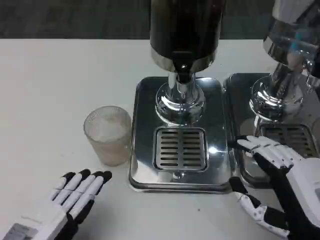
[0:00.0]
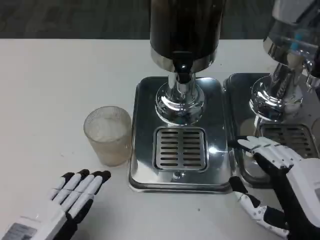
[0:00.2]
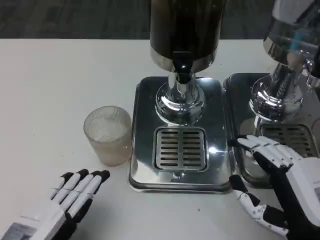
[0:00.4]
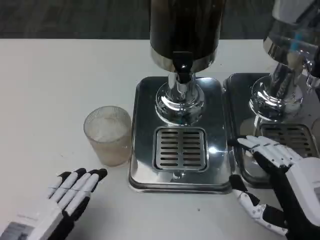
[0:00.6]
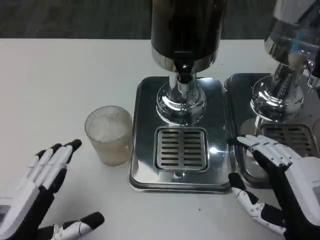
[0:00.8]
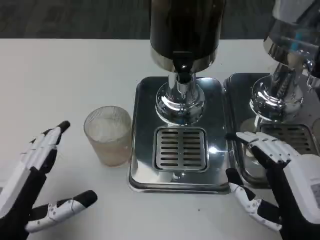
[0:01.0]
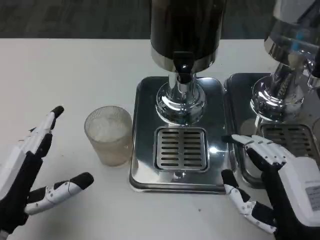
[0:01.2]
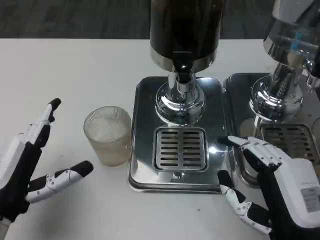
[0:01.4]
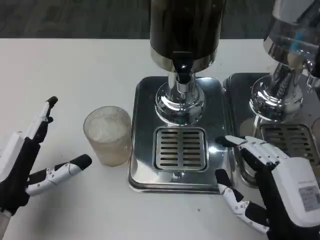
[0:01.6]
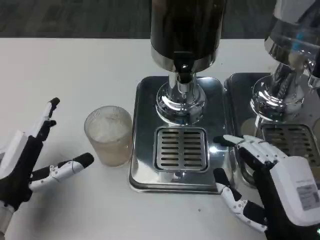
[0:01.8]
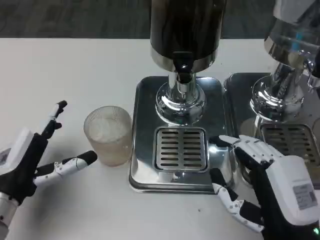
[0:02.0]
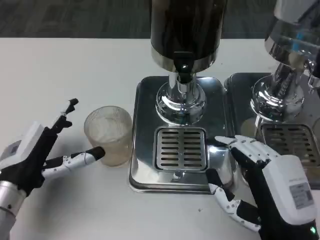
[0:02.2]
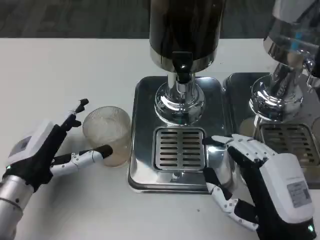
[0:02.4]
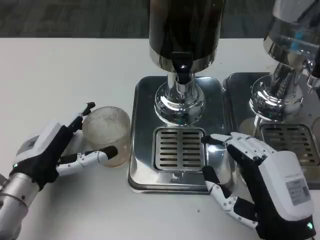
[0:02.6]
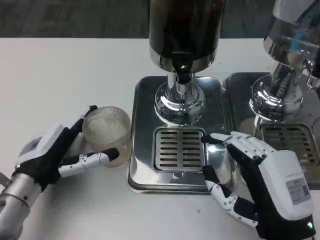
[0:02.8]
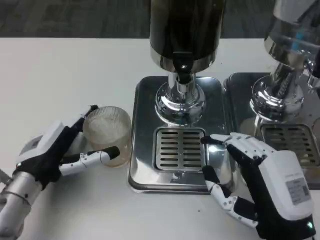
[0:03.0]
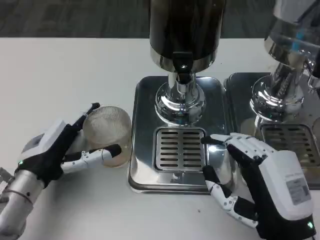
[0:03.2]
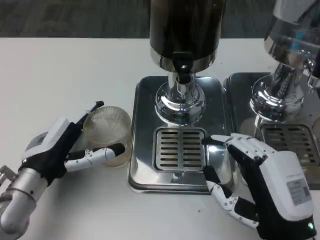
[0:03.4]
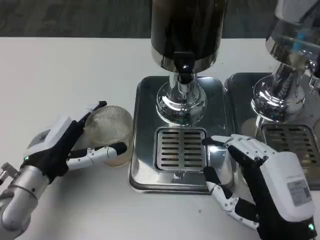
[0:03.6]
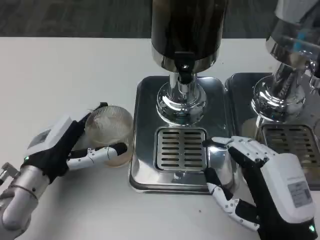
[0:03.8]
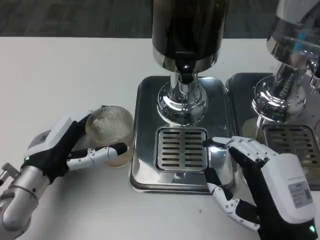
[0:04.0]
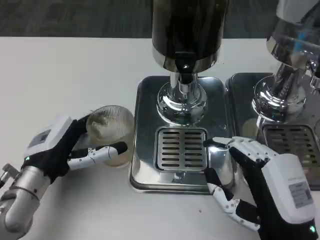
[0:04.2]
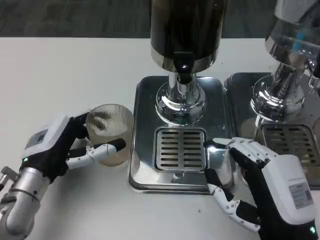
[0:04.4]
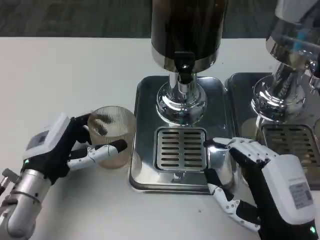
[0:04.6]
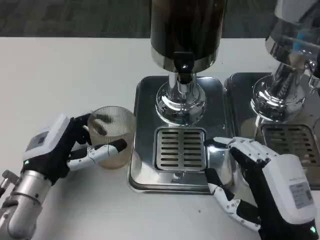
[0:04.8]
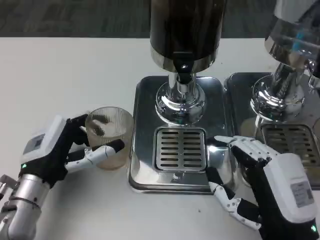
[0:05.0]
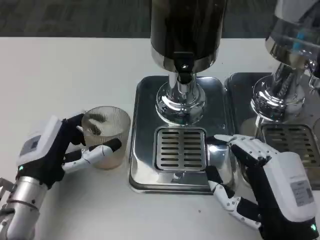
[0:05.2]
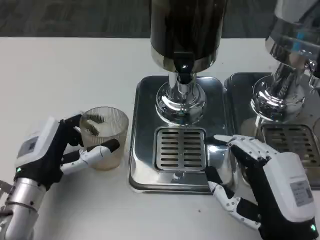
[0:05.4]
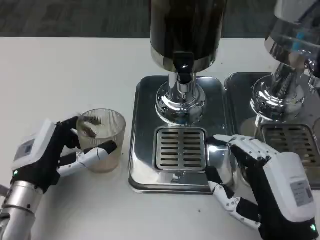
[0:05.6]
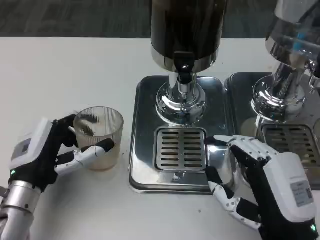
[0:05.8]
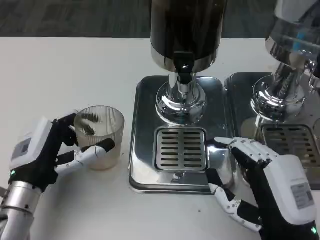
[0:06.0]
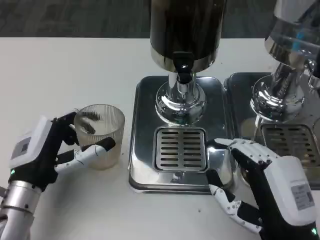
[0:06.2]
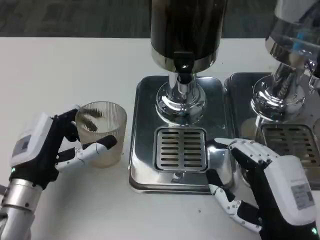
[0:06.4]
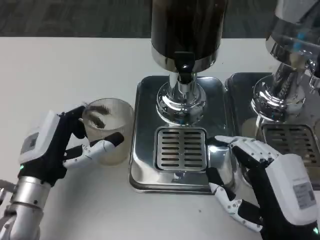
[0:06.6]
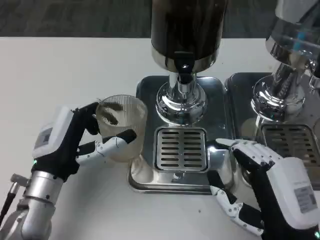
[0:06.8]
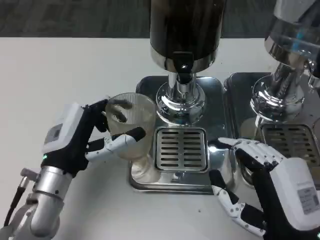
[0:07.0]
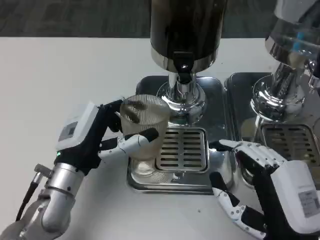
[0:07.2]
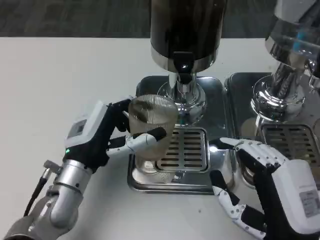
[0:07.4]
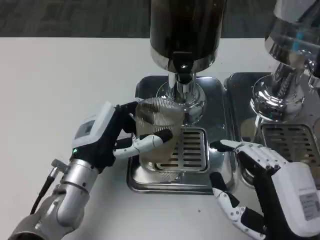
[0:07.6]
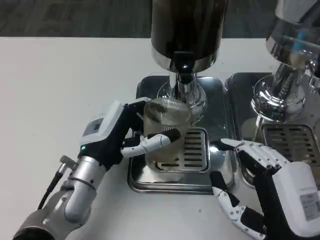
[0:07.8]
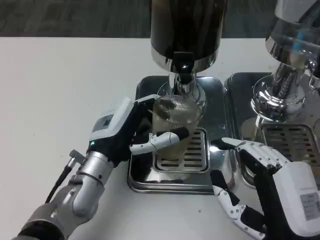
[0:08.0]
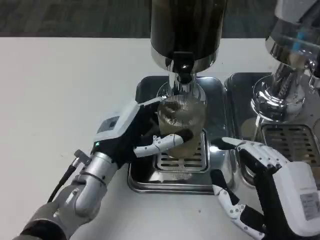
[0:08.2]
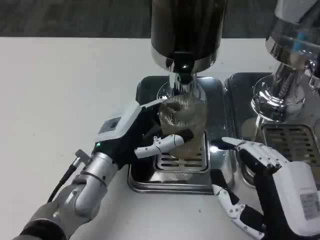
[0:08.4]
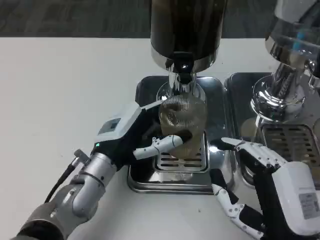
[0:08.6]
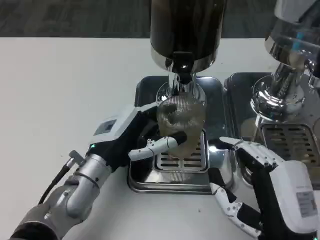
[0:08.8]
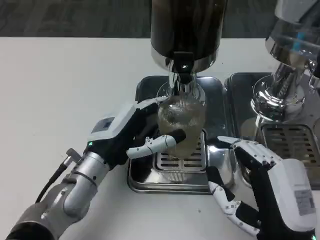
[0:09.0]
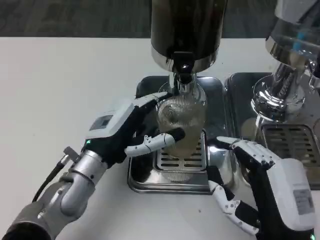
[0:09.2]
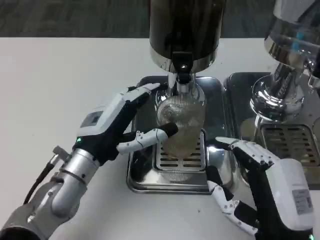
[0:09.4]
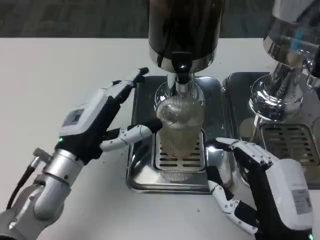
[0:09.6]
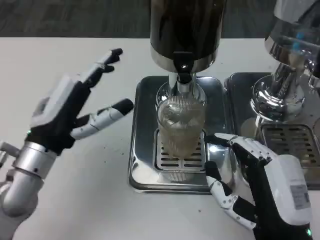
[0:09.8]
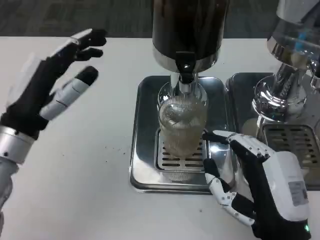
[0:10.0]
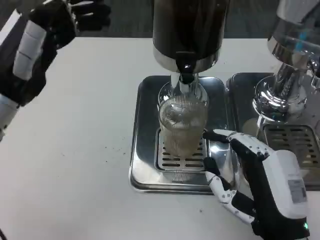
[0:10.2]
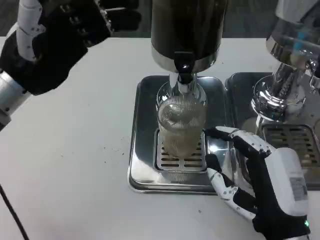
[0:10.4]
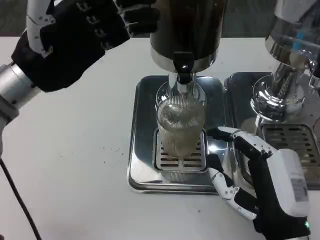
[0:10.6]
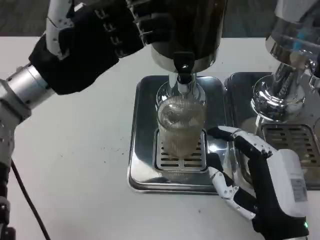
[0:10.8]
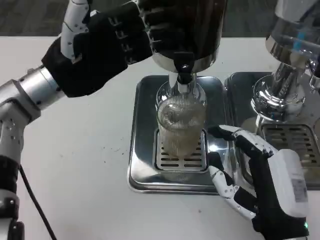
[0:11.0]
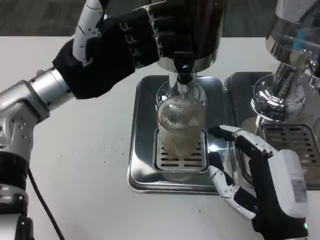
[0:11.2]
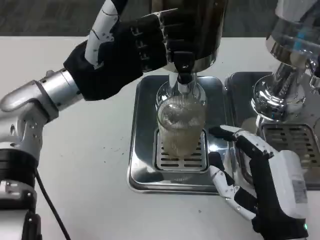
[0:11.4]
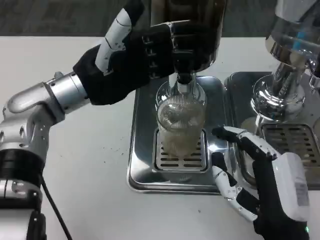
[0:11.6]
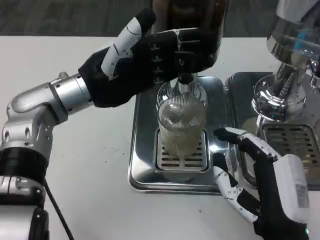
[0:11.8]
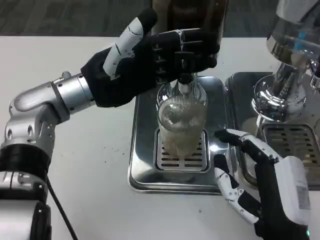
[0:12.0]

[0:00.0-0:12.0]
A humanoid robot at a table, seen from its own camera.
Task of the whole recording: Grasp the cup under the faucet to collect the drink, then remove the cup.
0:00.0 to 0:01.6: The left hand travels forward by approximately 10 cm.
0:01.6 to 0:03.0: The left hand travels forward by roughly 5 cm.
0:03.0 to 0:06.0: There are only small adjustments of the hands.
0:06.0 to 0:07.6: The left hand heads to the right, covering approximately 5 cm.
0:07.6 to 0:09.0: There are only small adjustments of the hands.
0:09.0 to 0:10.4: The left hand moves upward and to the left, roughly 15 cm.
0:10.4 to 0:12.0: The left hand travels to the right by about 5 cm.

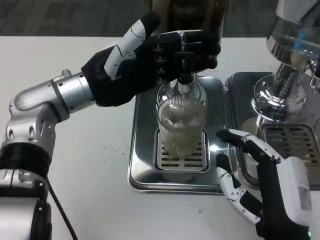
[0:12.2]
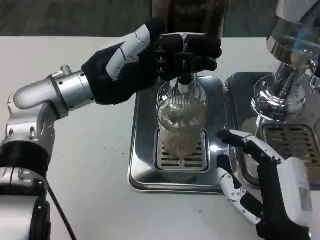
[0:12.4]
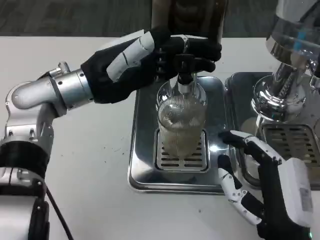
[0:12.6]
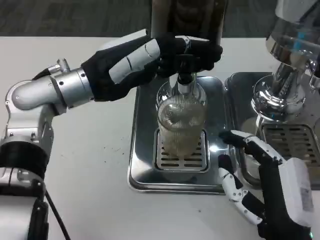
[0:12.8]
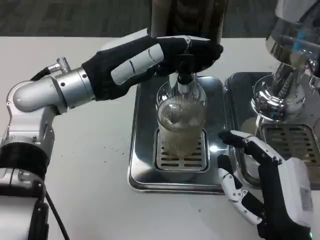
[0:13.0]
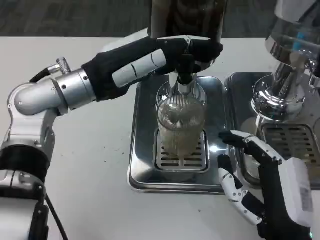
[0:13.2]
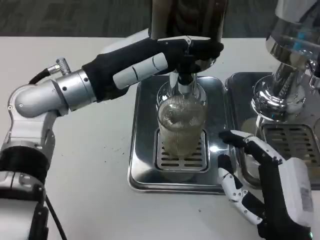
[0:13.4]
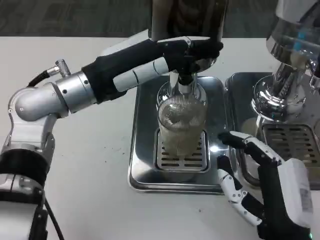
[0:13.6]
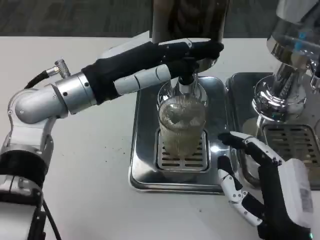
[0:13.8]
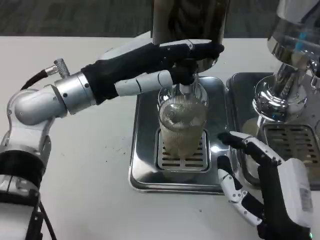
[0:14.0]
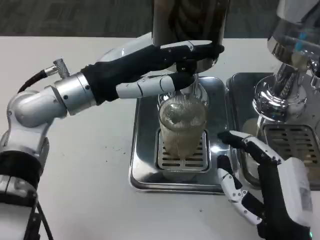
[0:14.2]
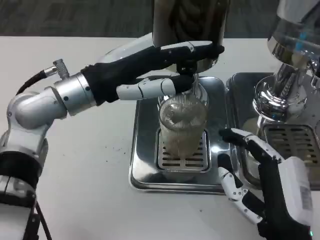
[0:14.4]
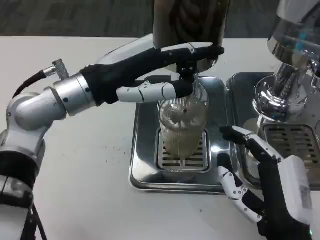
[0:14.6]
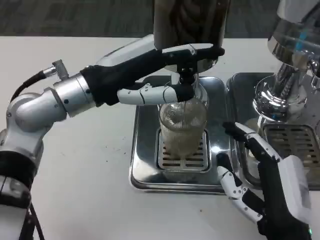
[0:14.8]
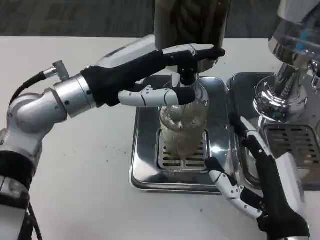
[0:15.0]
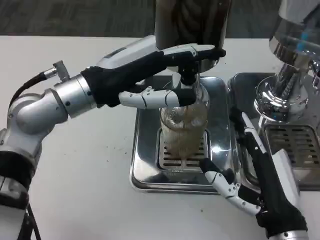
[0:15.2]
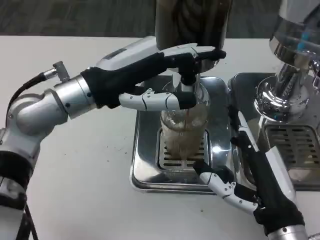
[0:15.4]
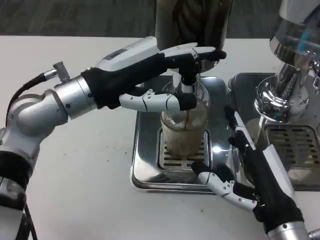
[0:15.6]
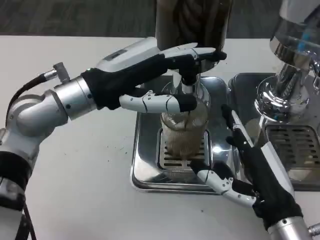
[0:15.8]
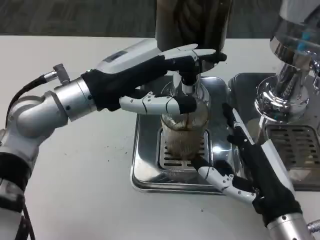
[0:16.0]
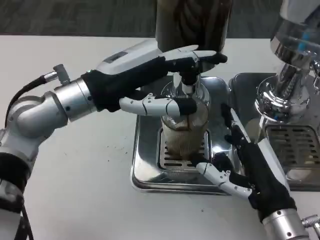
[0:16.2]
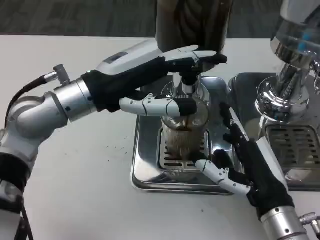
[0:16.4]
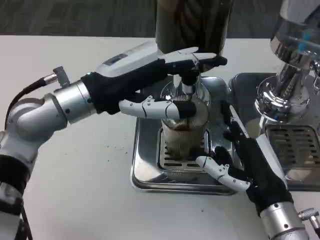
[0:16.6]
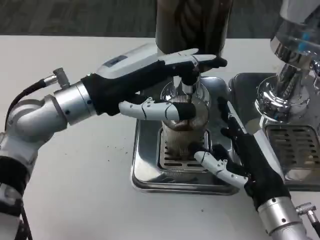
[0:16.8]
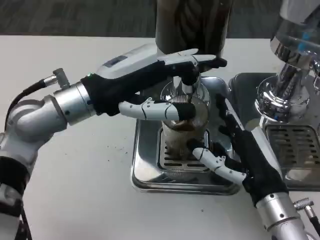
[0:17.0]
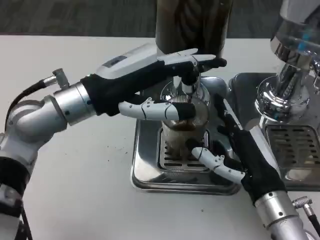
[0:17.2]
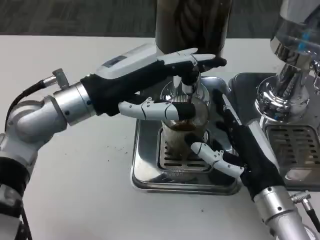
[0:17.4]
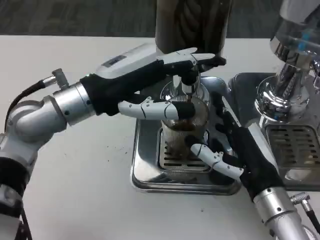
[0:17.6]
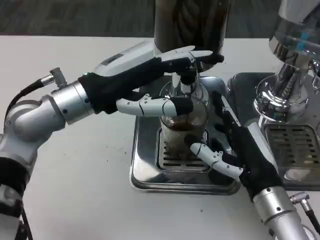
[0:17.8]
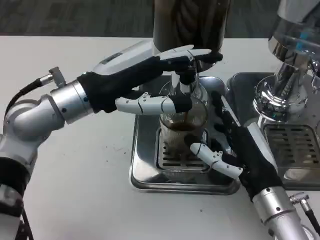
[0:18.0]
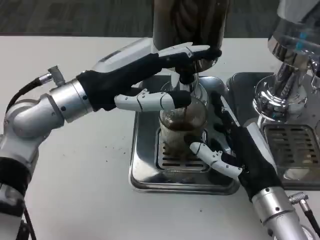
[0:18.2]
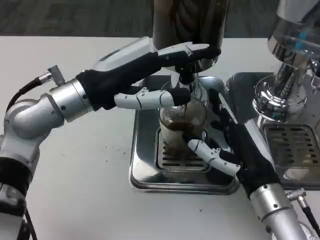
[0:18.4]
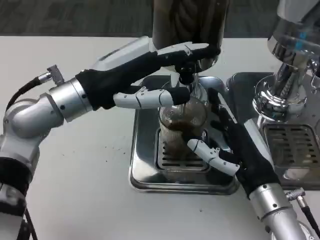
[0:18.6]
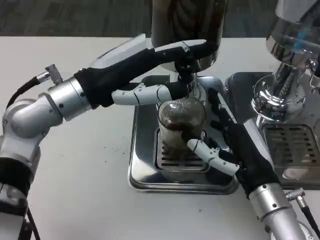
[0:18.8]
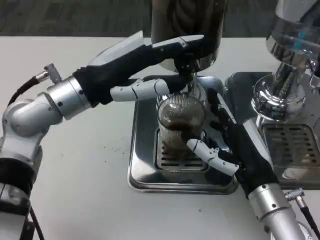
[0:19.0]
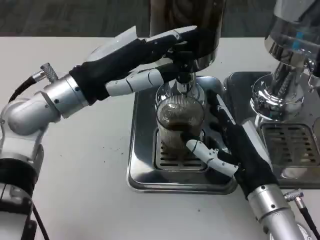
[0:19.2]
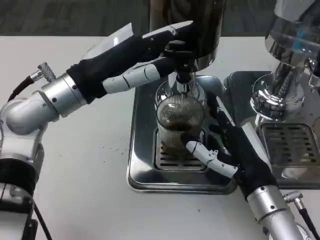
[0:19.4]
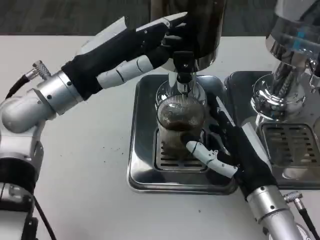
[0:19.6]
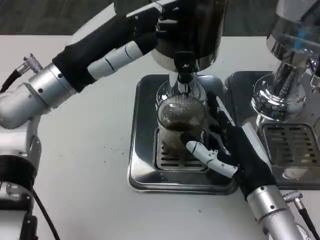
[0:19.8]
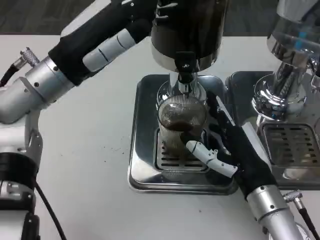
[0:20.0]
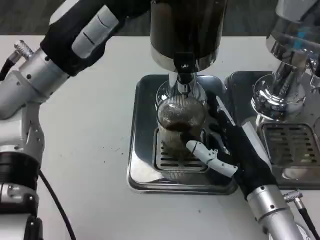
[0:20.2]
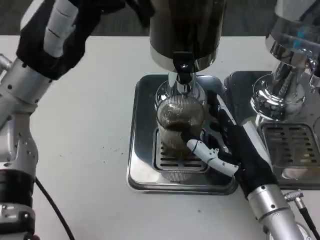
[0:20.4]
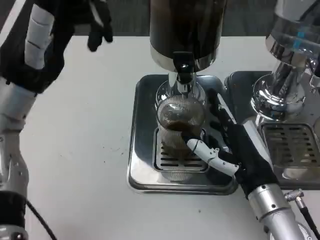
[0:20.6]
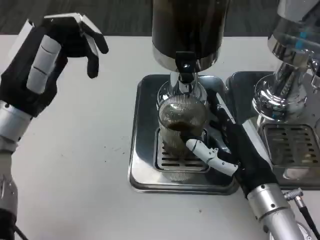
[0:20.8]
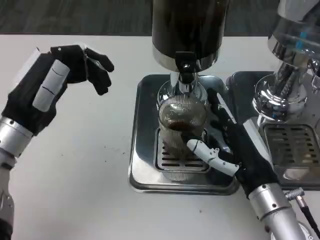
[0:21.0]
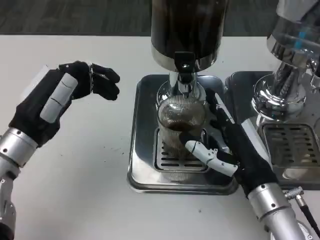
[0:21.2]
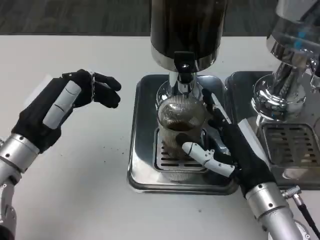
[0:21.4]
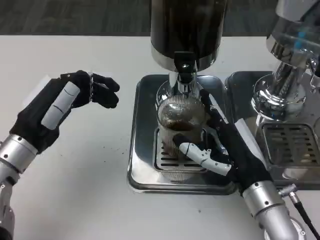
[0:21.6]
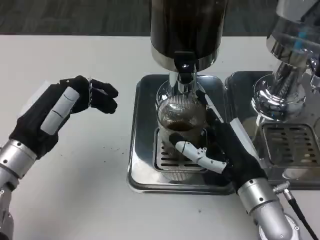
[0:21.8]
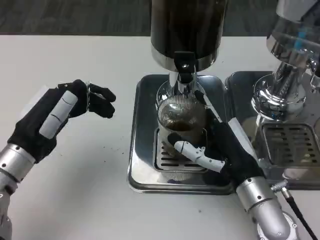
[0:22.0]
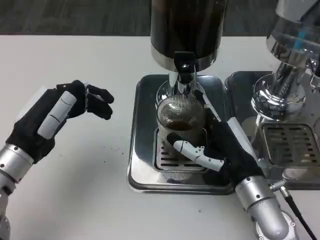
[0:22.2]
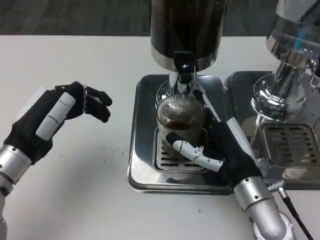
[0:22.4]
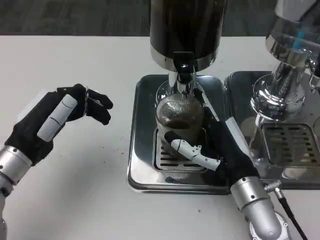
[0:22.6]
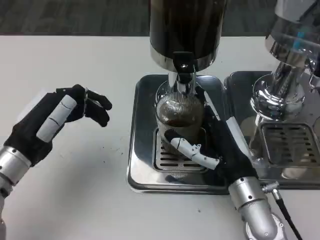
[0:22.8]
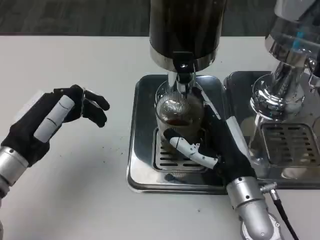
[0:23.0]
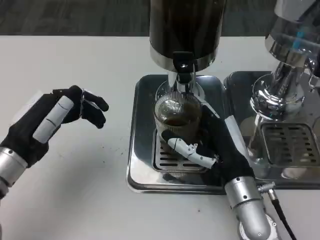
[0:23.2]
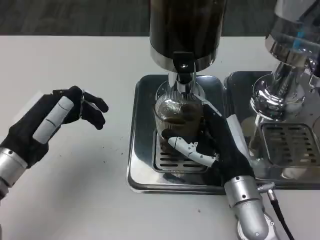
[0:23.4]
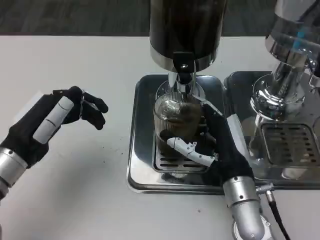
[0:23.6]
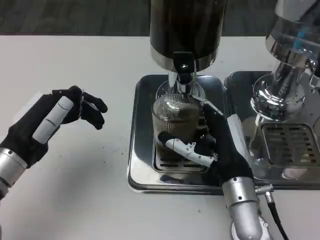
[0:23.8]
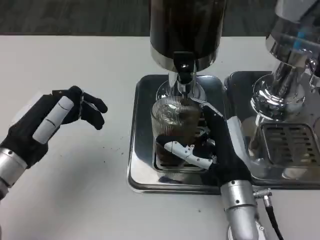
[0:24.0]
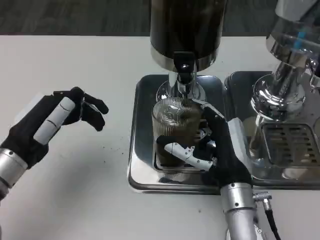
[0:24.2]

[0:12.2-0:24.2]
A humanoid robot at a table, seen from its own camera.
Task of the whole recording: Grasp the cup under the faucet to collect the drink, then remove the cup.
0:19.8 to 0:21.2: The left hand heads downward and backward, covering about 10 cm.
0:22.6 to 0:24.2: The hands stay close to where they were, moving slightly.
